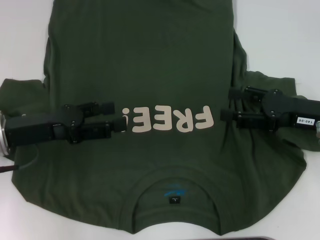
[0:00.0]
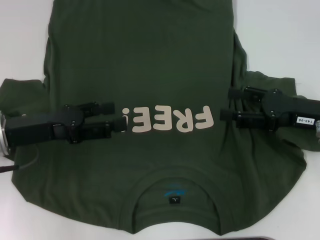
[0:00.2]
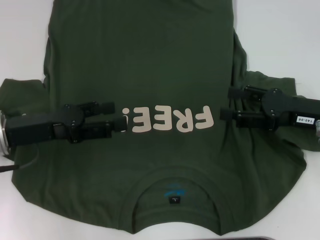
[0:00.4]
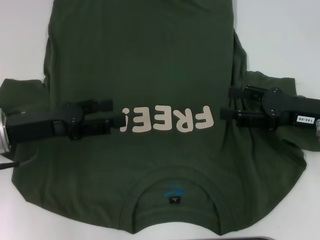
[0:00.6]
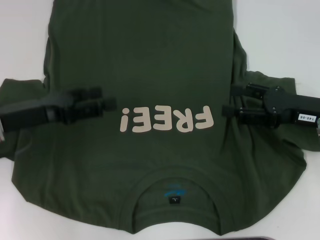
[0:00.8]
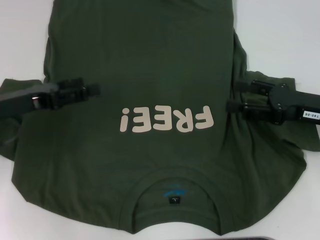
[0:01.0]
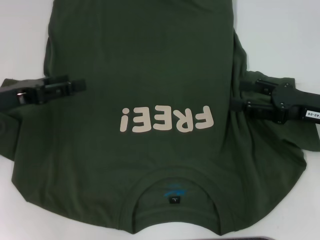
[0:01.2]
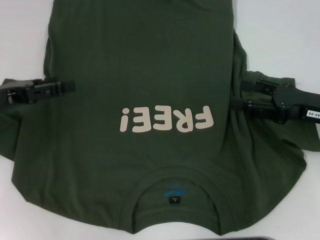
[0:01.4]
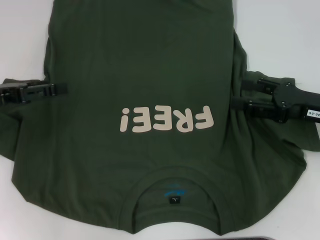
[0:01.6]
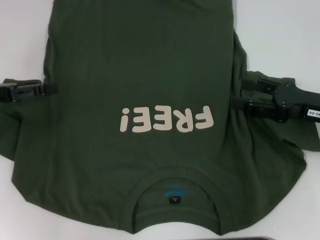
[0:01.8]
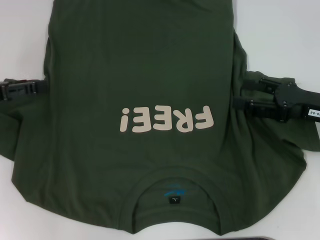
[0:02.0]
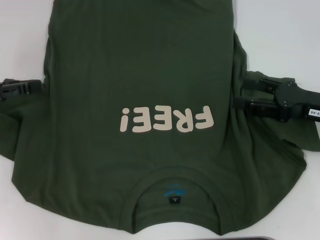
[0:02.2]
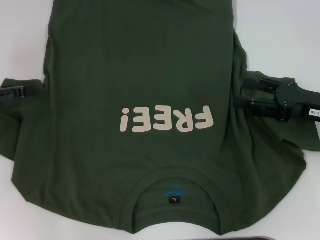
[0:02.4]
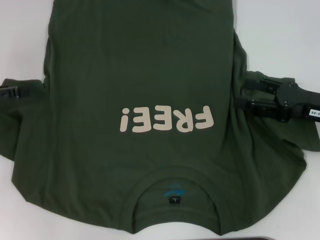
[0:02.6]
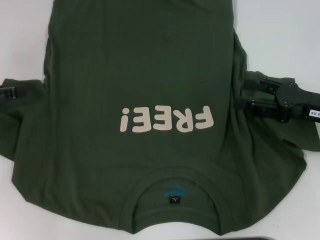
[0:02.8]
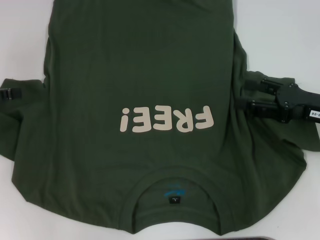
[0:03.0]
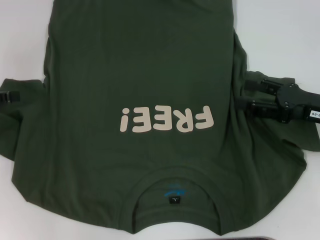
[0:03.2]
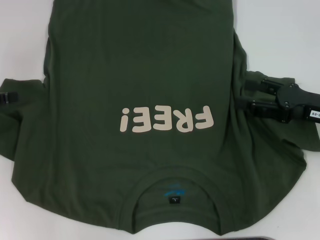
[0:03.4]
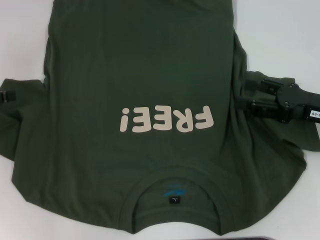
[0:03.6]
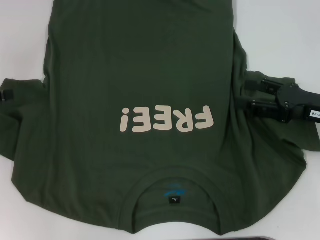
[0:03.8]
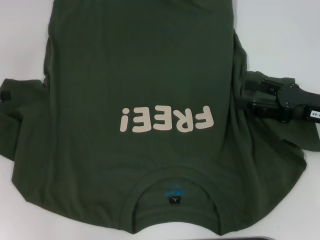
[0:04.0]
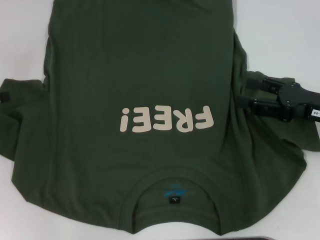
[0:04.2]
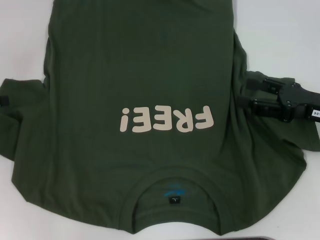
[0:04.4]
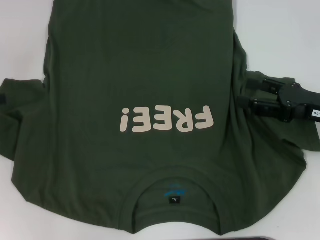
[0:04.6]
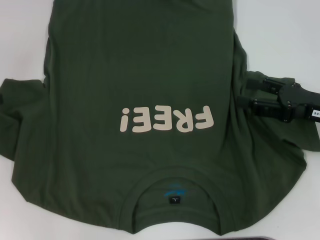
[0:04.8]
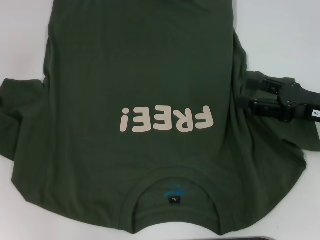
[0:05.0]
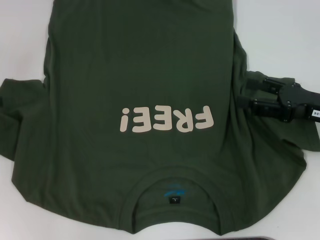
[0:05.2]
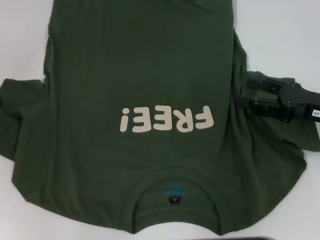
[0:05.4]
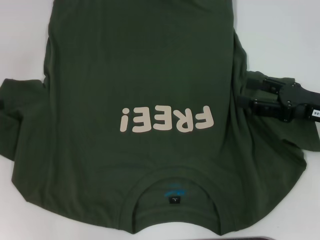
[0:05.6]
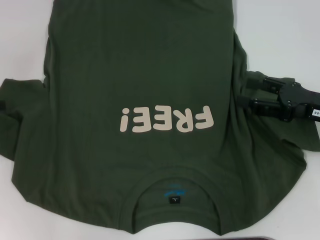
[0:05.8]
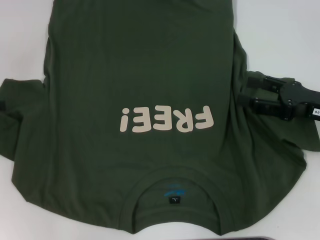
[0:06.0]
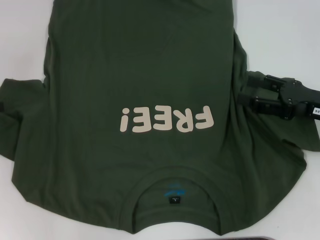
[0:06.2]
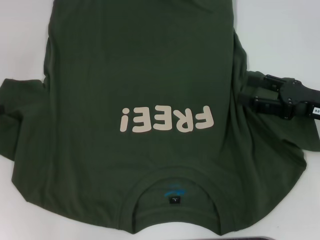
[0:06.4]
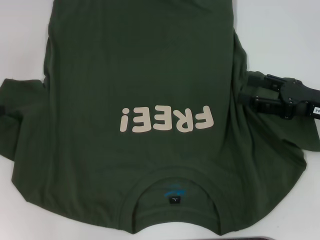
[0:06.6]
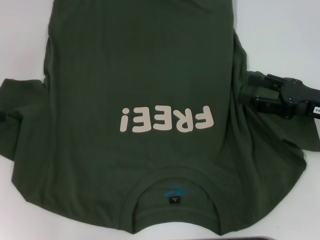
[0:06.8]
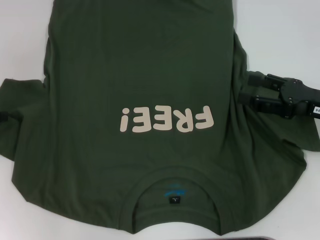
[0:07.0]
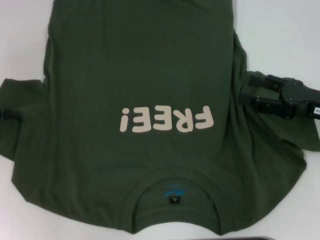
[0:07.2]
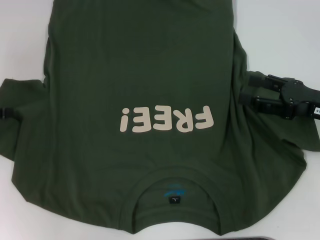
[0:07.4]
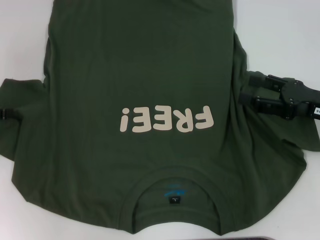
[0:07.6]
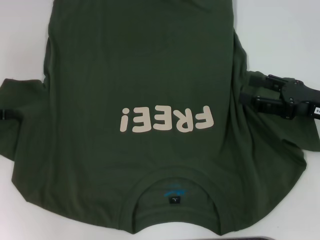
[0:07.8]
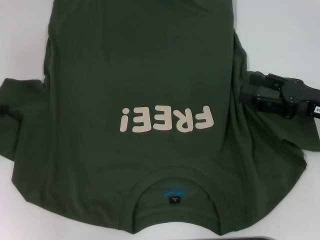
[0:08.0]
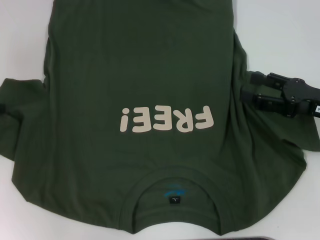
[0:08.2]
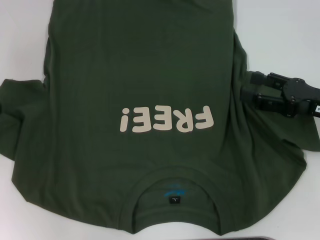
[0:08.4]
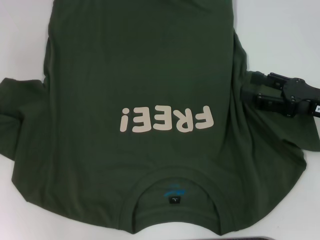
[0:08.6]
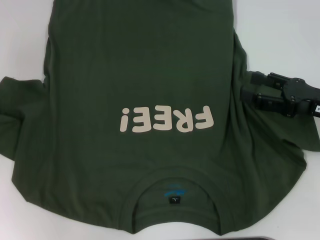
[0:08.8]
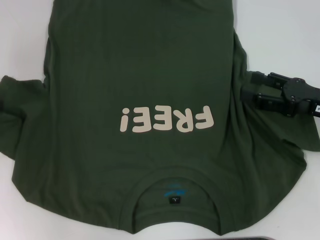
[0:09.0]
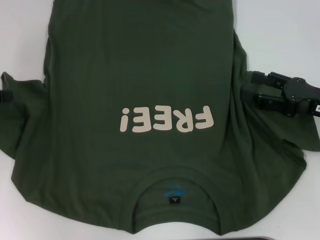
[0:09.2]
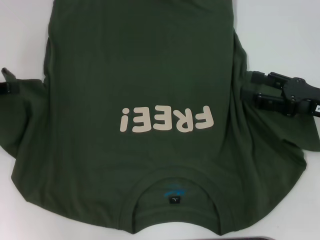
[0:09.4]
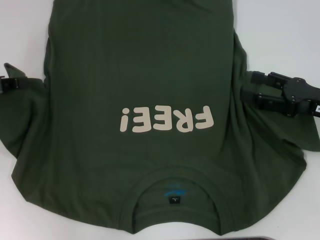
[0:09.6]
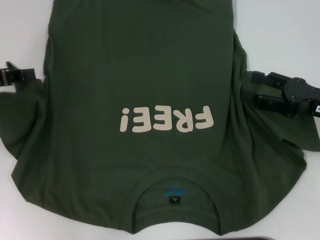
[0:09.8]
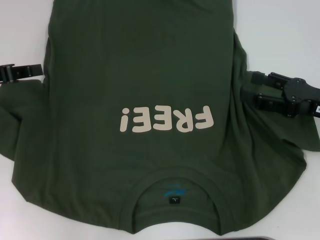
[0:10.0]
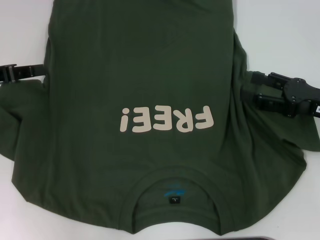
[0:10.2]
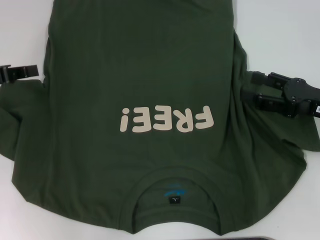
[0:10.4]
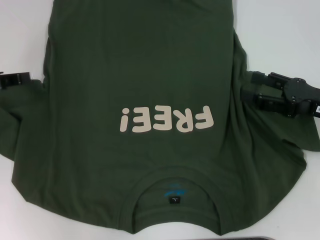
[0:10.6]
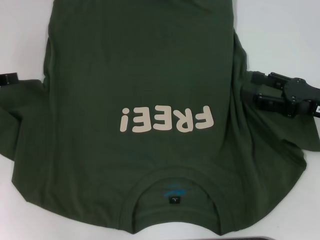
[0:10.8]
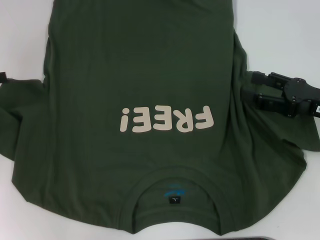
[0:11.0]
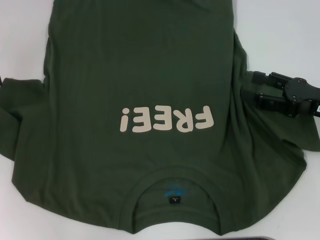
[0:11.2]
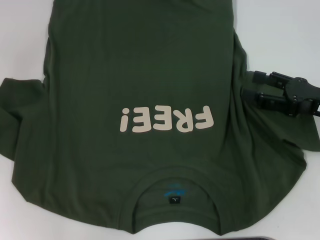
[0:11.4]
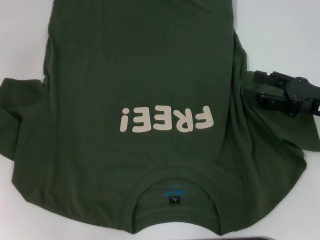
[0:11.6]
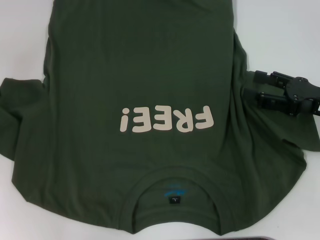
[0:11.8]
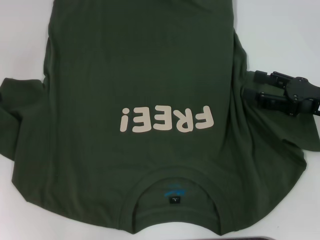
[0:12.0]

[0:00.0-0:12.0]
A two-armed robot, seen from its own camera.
0:00.0 to 0:01.6: The left gripper travels to the left by approximately 5 cm.
0:04.4 to 0:06.0: Neither gripper changes place.
0:10.4 to 0:12.0: The left gripper shifts roughly 5 cm to the left, and opens up.

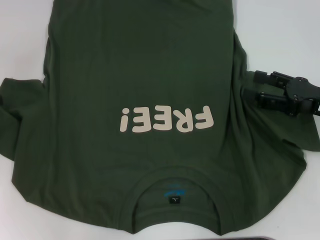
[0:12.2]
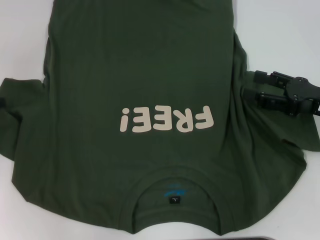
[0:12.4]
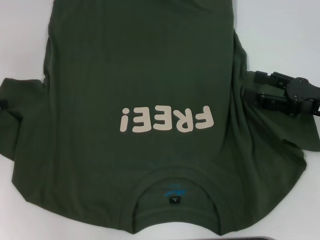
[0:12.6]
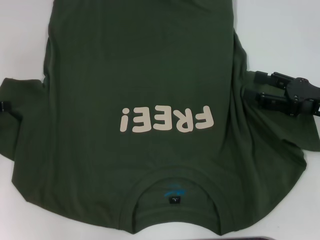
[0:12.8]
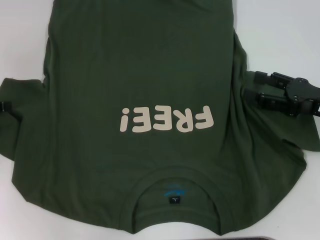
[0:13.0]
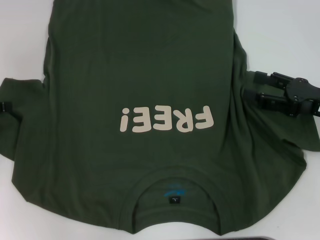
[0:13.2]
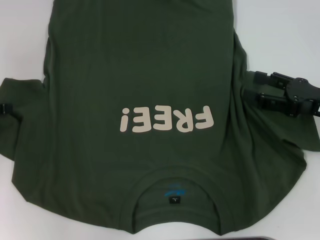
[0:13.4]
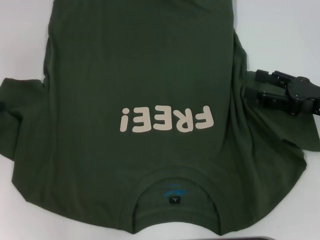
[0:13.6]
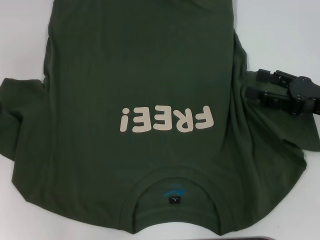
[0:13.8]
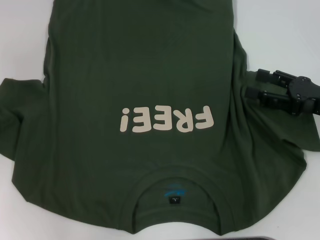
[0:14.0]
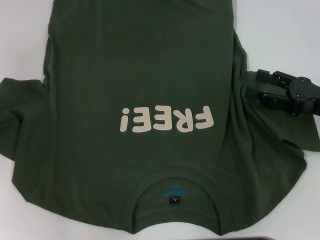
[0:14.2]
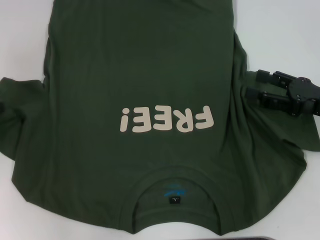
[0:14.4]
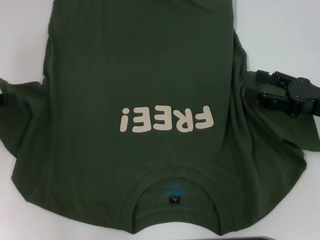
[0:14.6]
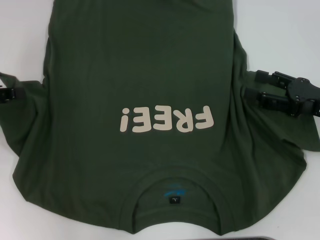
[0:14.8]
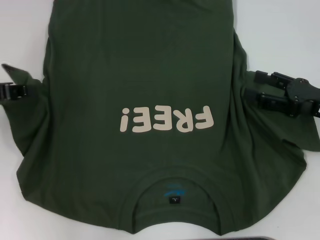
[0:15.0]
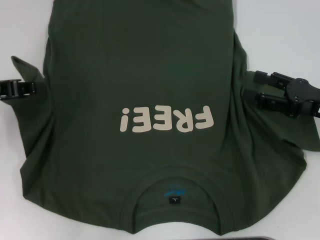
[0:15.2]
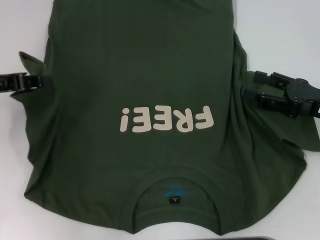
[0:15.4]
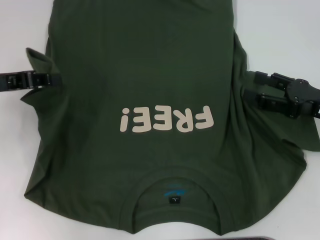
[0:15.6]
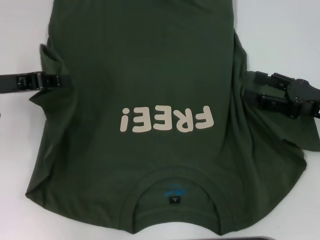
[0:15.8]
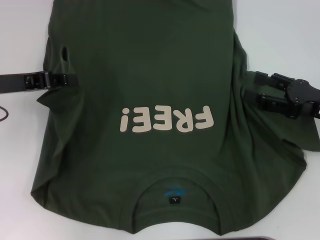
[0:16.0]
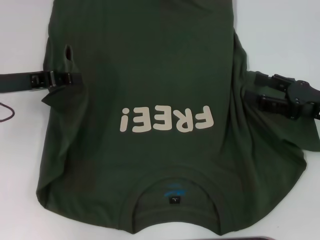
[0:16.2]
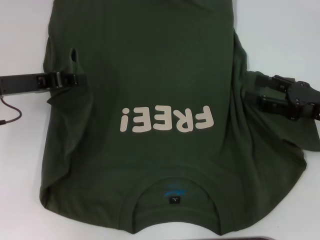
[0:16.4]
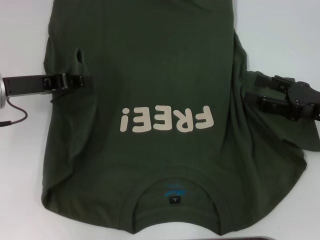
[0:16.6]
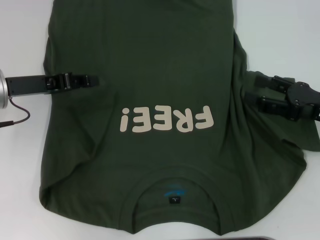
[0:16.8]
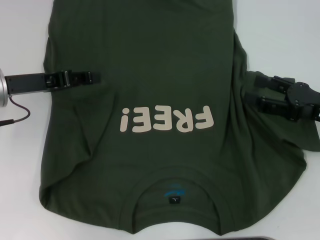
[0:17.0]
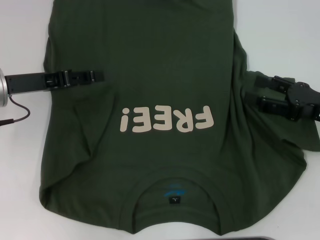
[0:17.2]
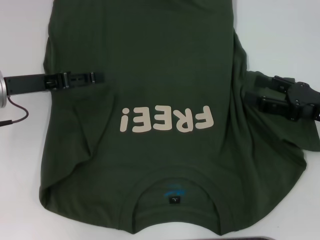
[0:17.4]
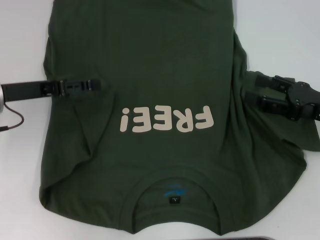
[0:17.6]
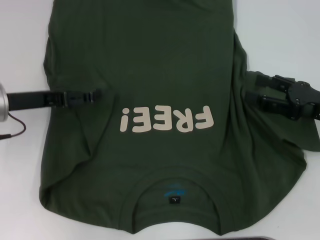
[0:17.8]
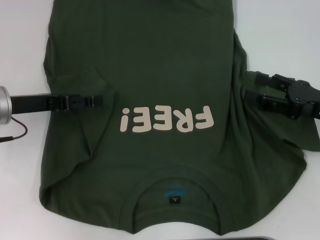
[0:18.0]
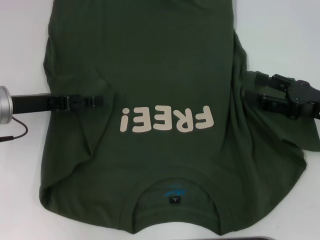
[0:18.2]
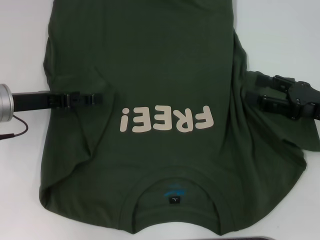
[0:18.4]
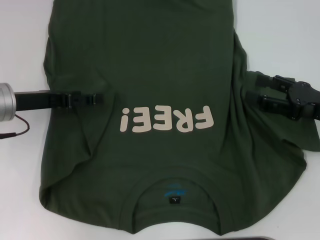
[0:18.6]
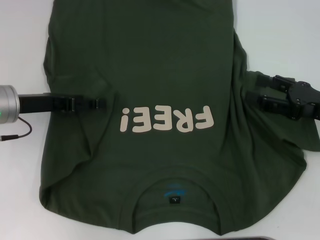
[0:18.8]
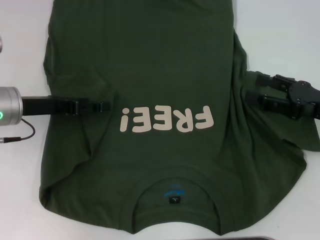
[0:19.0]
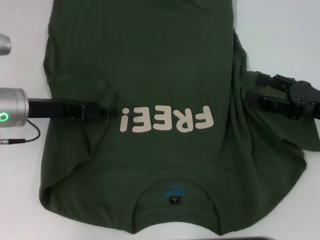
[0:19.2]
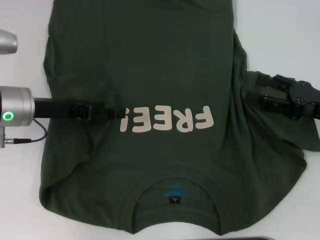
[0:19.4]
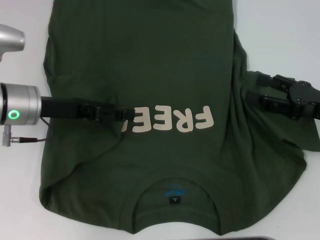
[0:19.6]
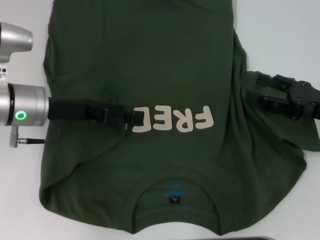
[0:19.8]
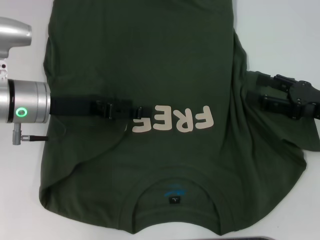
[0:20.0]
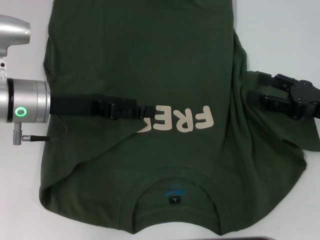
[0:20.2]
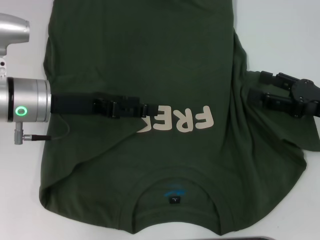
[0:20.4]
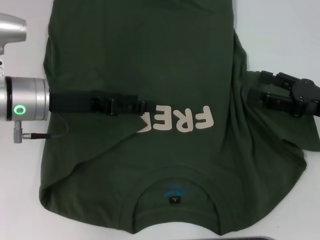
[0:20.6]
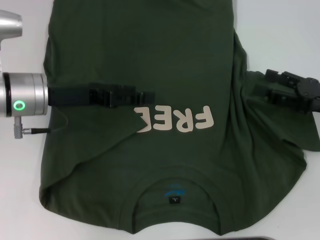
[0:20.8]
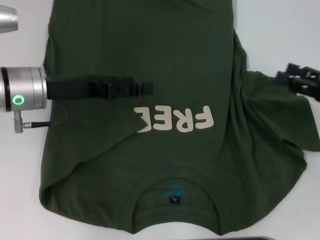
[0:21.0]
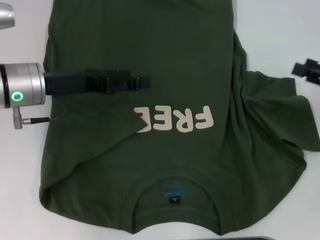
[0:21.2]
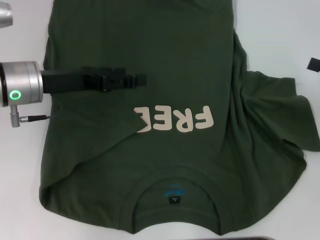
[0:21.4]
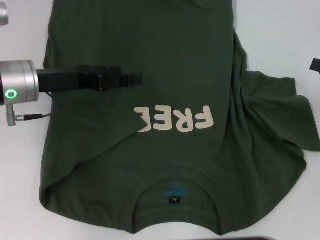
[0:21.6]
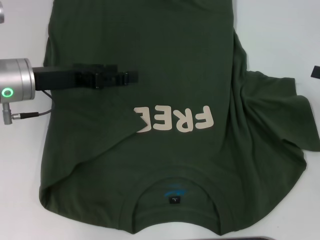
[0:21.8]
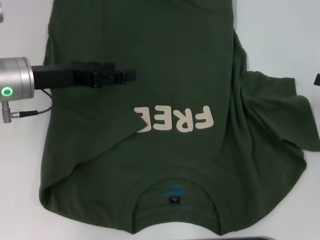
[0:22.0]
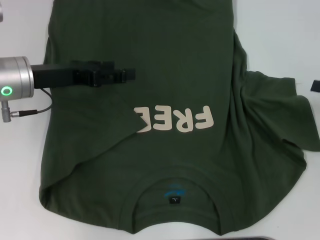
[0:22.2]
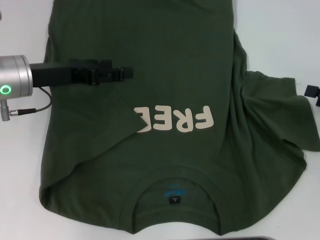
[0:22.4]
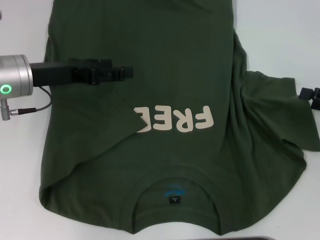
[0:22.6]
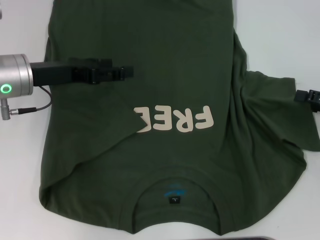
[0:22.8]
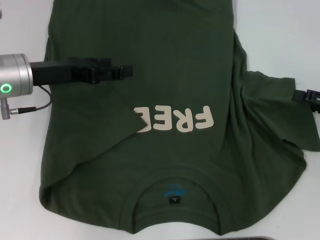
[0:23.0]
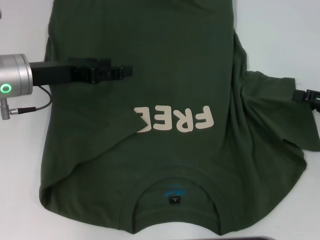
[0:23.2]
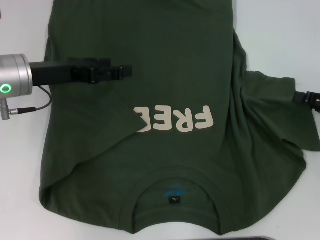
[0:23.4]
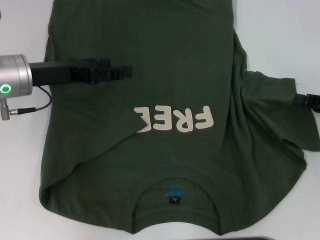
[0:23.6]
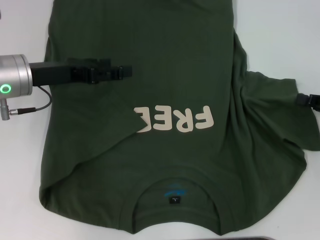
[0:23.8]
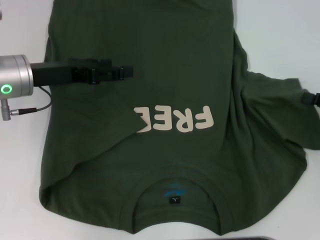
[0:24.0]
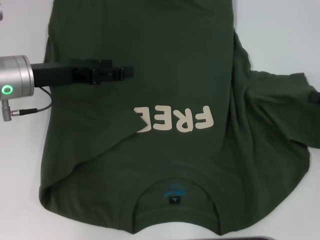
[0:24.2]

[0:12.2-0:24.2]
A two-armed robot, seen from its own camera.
Step, 0:12.2 to 0:20.2: Fold the bottom left sleeve with your left hand.
0:12.2 to 0:13.8: The two grippers keep their place.
0:13.8 to 0:15.2: The left gripper heads to the right, covering some 5 cm, and closes its fingers.
0:15.2 to 0:16.6: The left gripper goes approximately 5 cm to the right.
0:16.6 to 0:18.2: The left gripper opens.
0:18.2 to 0:19.8: The left gripper travels to the right by some 5 cm.
0:19.8 to 0:21.2: The right gripper goes roughly 5 cm to the right.
0:22.6 to 0:24.2: The right gripper closes up.
